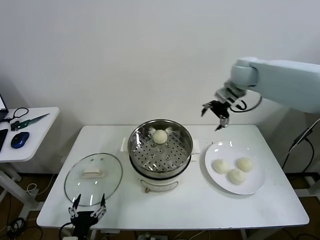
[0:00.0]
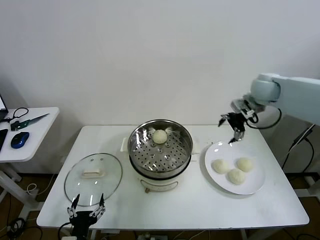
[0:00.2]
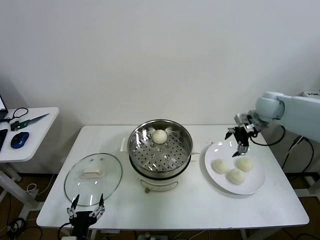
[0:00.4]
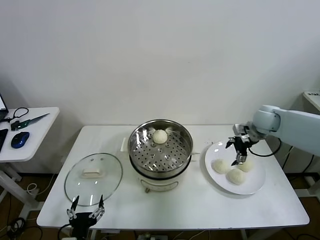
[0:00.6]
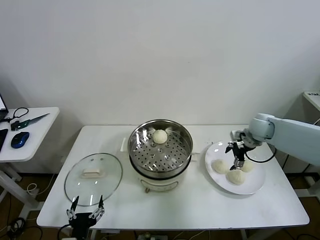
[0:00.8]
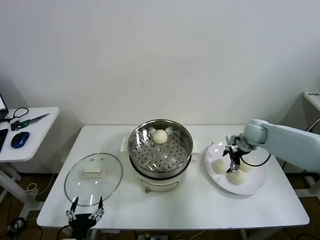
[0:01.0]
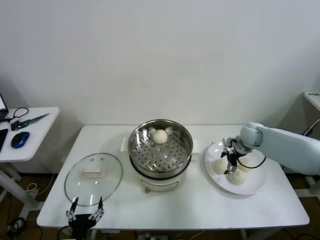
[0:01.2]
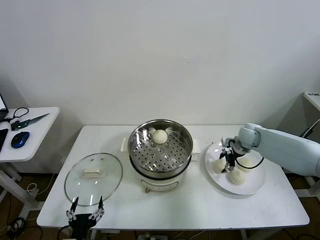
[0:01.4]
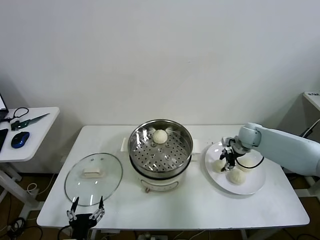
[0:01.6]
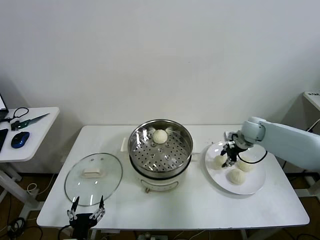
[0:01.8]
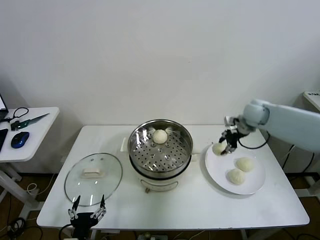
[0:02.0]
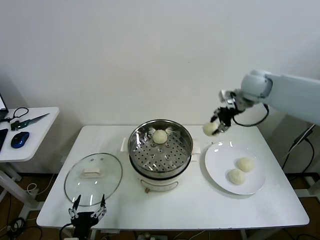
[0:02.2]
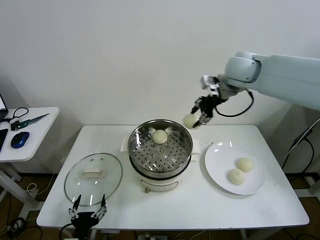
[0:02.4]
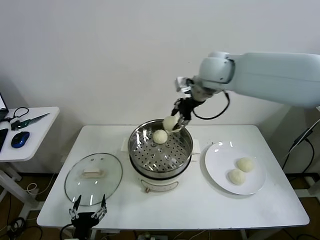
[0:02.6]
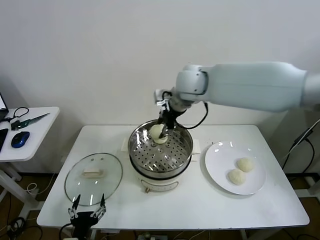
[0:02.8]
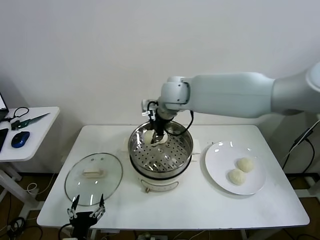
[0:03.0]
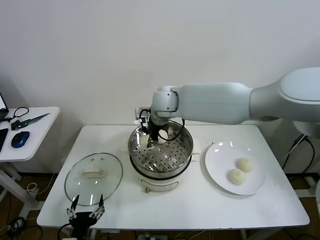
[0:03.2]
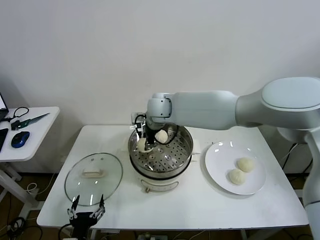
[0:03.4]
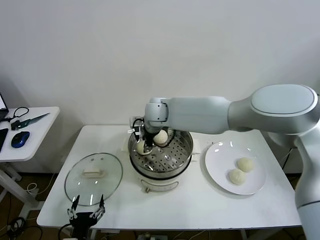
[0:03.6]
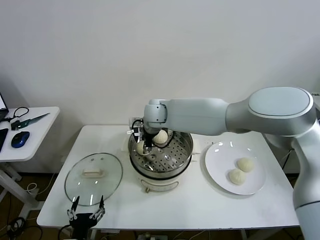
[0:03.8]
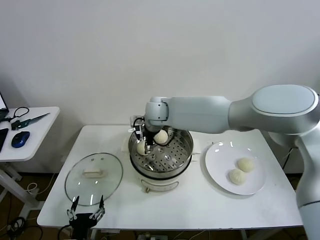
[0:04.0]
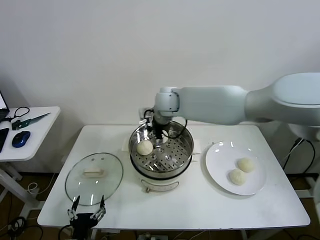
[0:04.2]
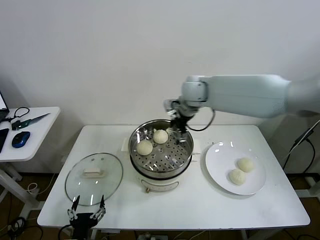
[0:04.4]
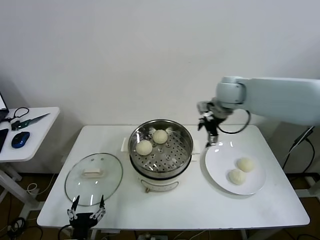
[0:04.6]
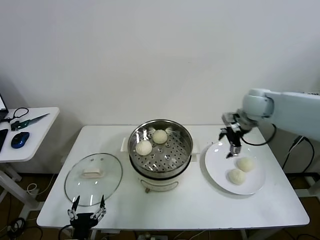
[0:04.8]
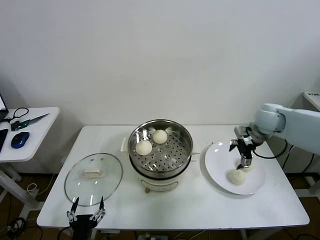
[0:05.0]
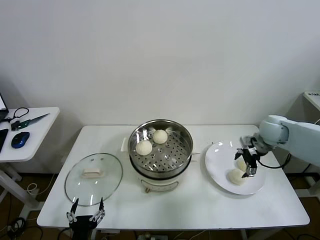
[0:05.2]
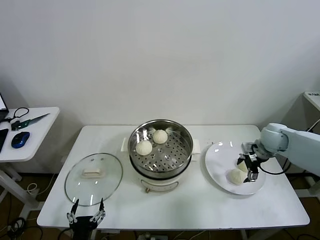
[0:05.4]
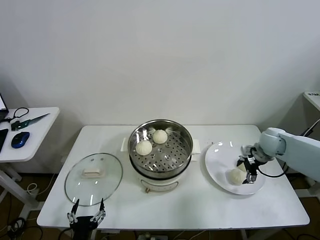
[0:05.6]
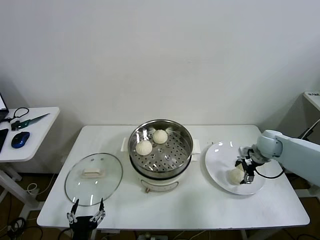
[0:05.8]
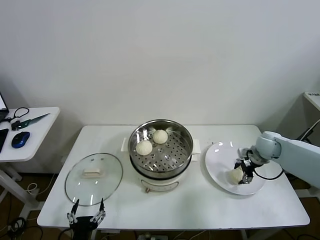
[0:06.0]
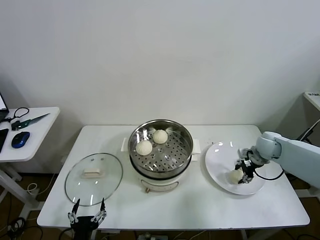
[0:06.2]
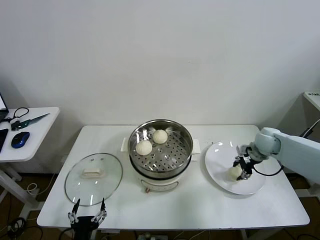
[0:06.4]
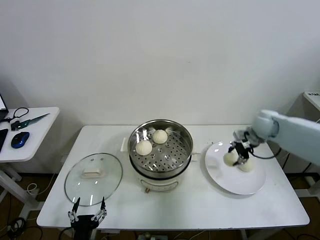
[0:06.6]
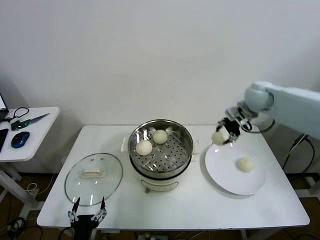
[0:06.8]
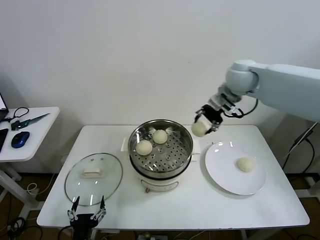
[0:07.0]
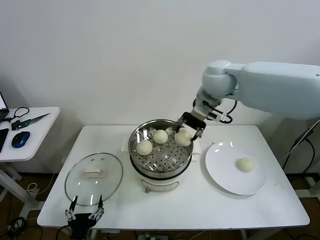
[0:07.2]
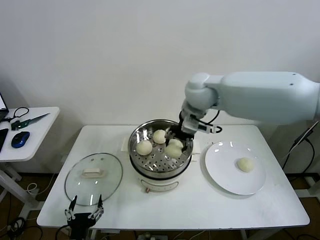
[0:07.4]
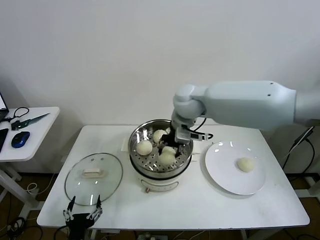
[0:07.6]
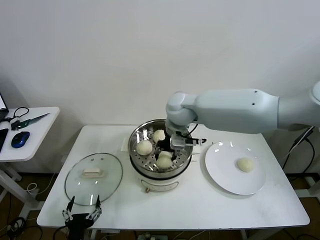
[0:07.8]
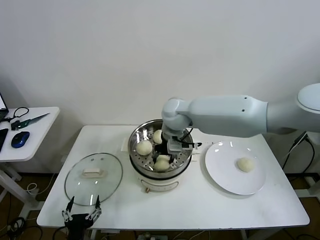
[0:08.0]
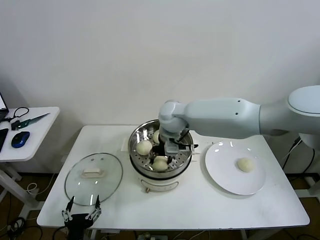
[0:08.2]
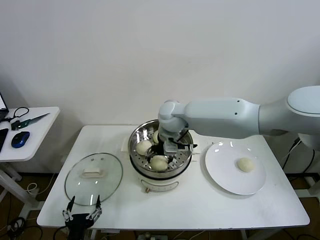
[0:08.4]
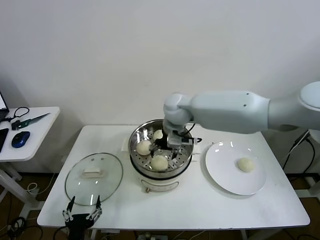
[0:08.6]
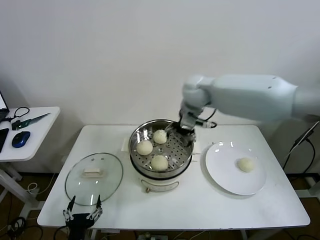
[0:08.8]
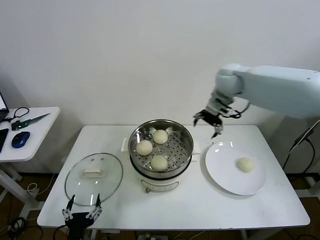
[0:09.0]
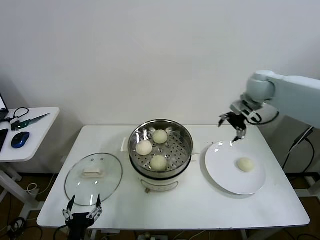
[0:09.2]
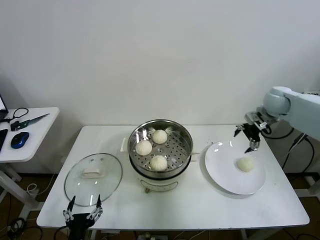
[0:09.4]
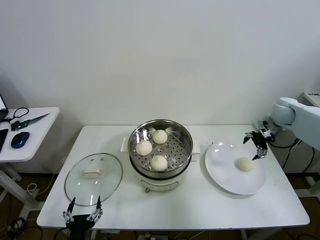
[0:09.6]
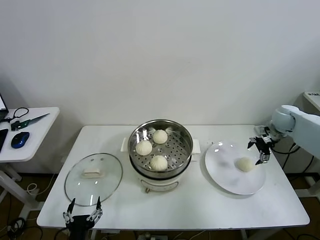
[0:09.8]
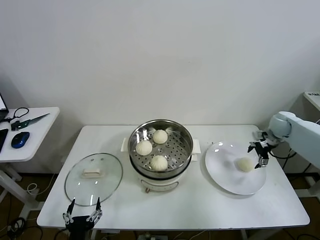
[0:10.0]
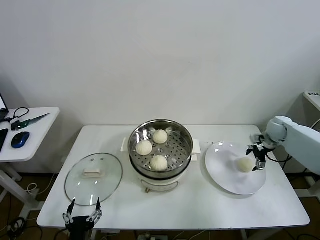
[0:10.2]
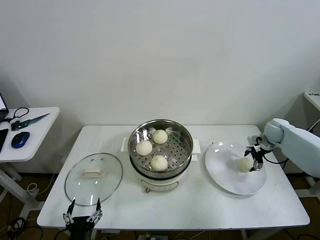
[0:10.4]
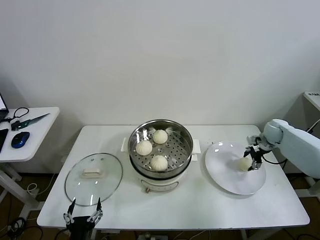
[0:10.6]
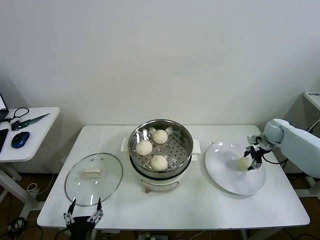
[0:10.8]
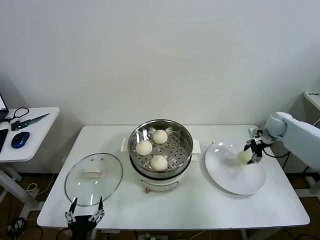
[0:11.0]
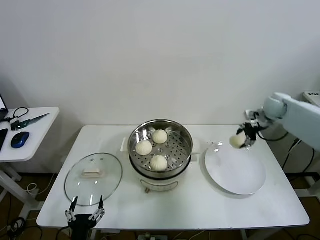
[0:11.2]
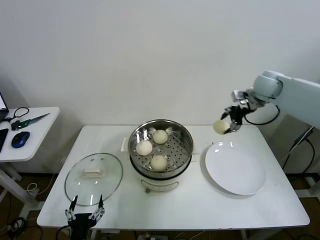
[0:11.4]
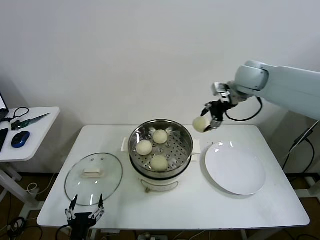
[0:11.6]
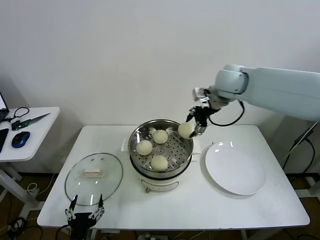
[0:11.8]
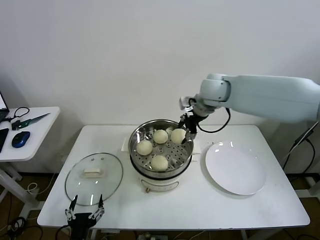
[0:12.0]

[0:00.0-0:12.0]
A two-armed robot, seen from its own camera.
Task of the whole recording: take steamed baozi put them in steamer then cover it.
Step, 0:00.0 to 0:01.4: Grasp the baozi in the plate with right gripper.
Step, 0:01.6 to 0:04.0: Place the baozi on the steamer with right gripper.
Step, 0:04.4 to 0:06.0: Grasp the baozi in the plate with right gripper.
Step, 0:06.2 to 0:08.4: Place the baozi on the steamer with right gripper.
Step, 0:08.6 to 0:10.4: Grasp the baozi in the plate with right gripper.
0:00.0 to 0:01.6: The right gripper heads downward, covering roughly 25 cm, and closes up.
0:01.6 to 0:03.0: The right gripper is displaced to the left and upward by roughly 40 cm.
0:03.0 to 0:04.4: The right gripper is displaced to the right by about 10 cm, and opens up.
0:04.4 to 0:06.0: The right gripper is displaced to the right and downward by approximately 35 cm, and closes.
0:06.0 to 0:07.6: The right gripper shifts approximately 40 cm to the left and upward, and closes up.
0:07.6 to 0:09.0: The right gripper is displaced to the right and forward by approximately 15 cm, and opens.
0:09.0 to 0:10.4: The right gripper shifts about 35 cm to the right and downward.
0:10.4 to 0:12.0: The right gripper goes approximately 35 cm to the left and upward, and closes its fingers.

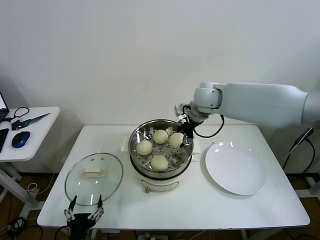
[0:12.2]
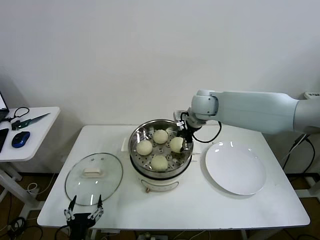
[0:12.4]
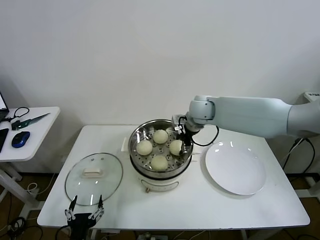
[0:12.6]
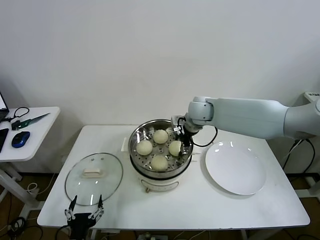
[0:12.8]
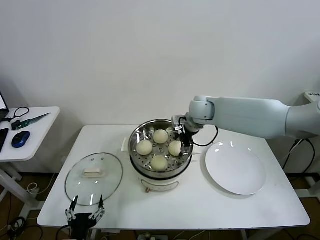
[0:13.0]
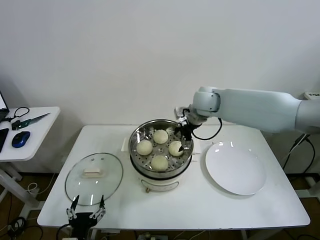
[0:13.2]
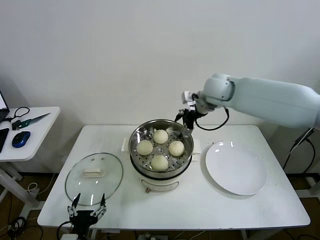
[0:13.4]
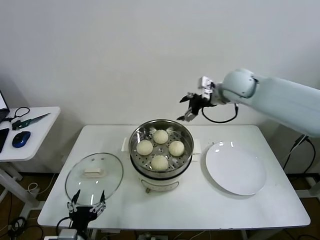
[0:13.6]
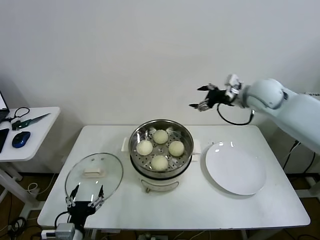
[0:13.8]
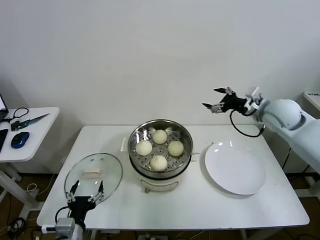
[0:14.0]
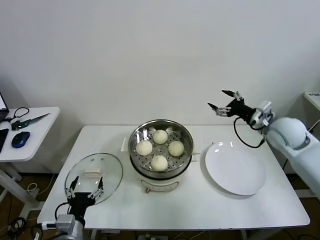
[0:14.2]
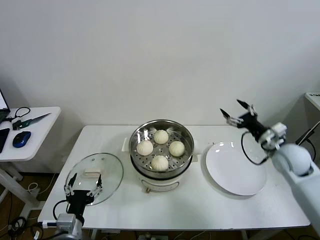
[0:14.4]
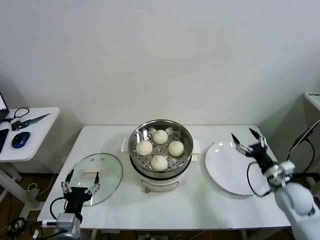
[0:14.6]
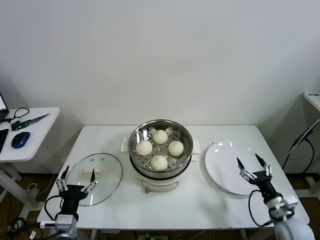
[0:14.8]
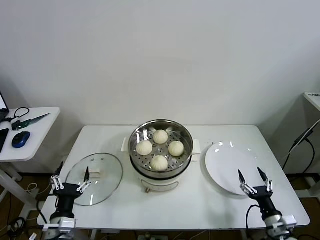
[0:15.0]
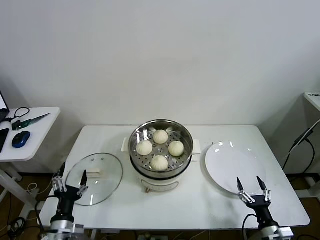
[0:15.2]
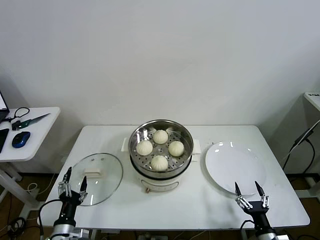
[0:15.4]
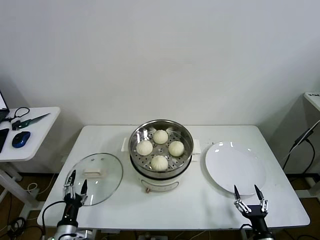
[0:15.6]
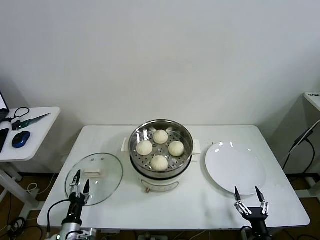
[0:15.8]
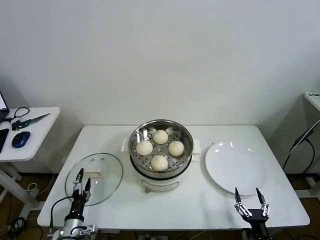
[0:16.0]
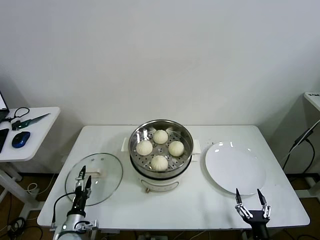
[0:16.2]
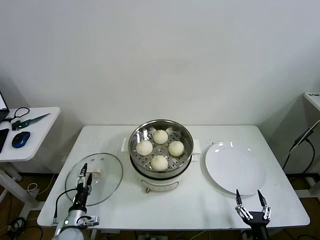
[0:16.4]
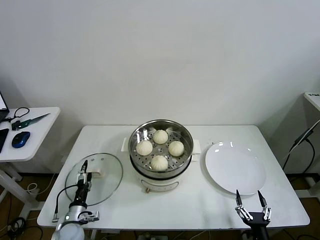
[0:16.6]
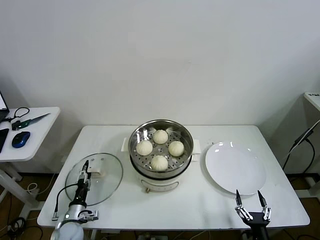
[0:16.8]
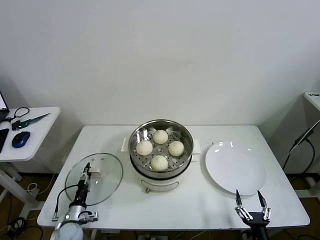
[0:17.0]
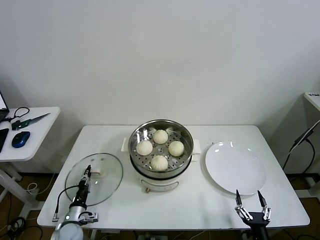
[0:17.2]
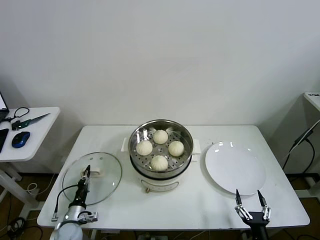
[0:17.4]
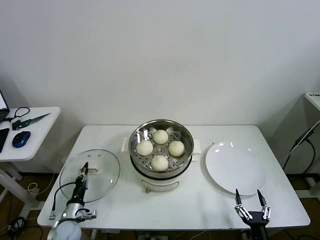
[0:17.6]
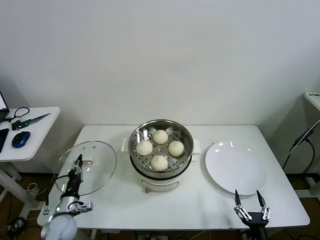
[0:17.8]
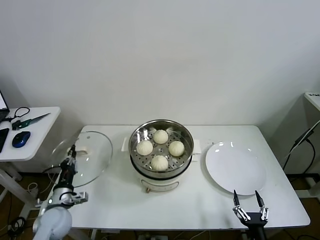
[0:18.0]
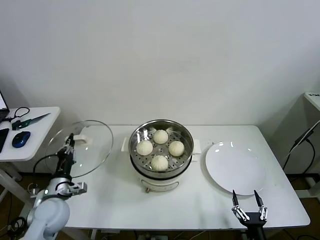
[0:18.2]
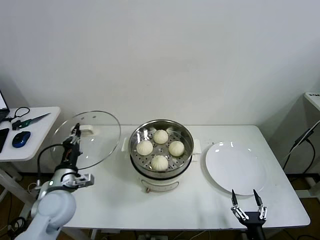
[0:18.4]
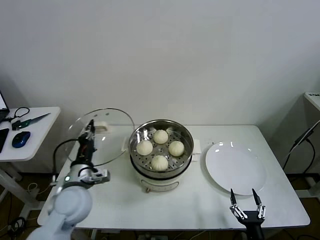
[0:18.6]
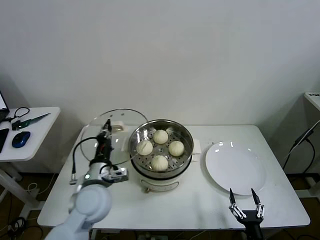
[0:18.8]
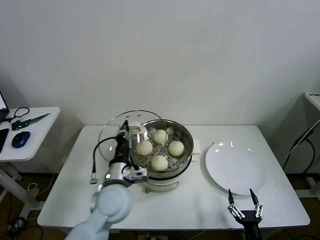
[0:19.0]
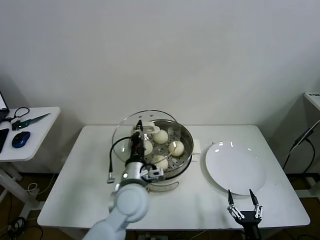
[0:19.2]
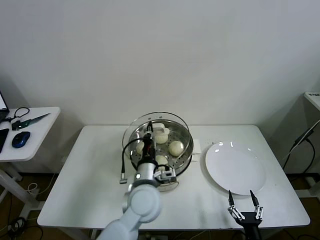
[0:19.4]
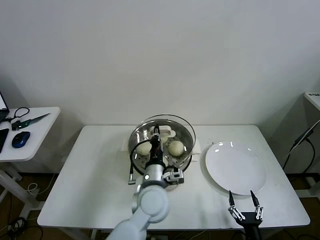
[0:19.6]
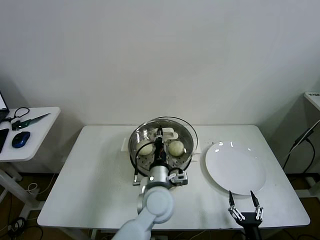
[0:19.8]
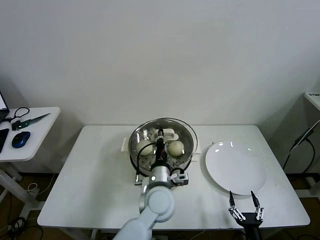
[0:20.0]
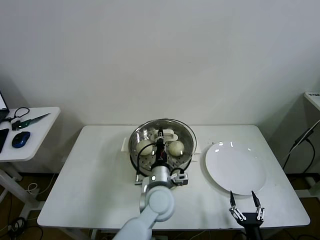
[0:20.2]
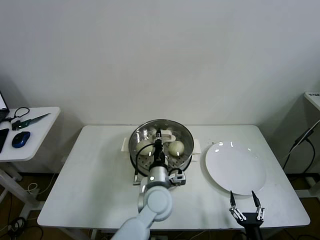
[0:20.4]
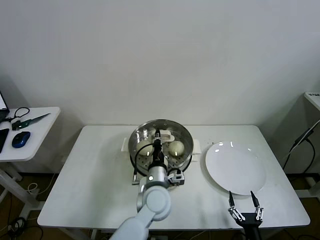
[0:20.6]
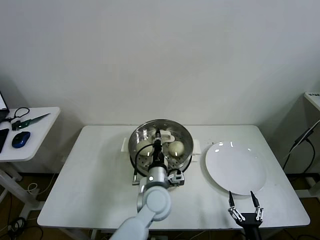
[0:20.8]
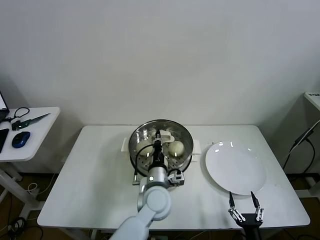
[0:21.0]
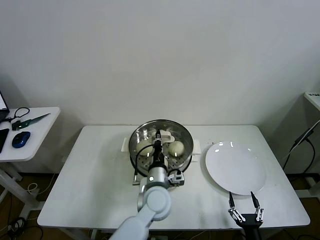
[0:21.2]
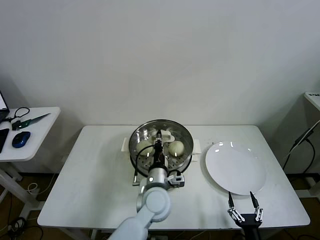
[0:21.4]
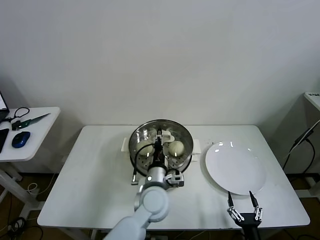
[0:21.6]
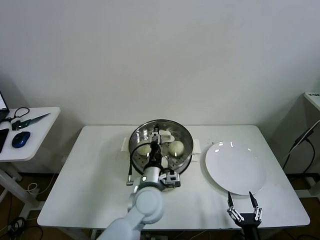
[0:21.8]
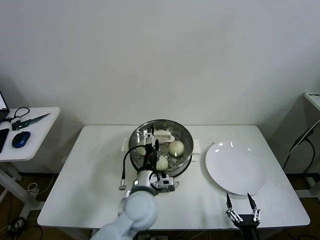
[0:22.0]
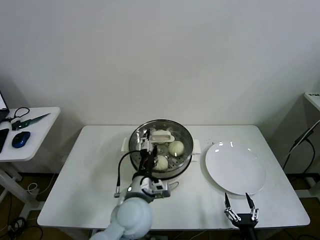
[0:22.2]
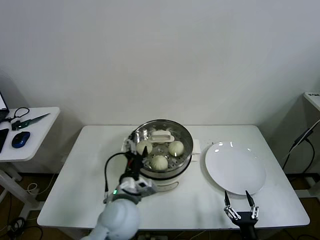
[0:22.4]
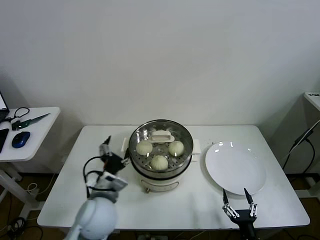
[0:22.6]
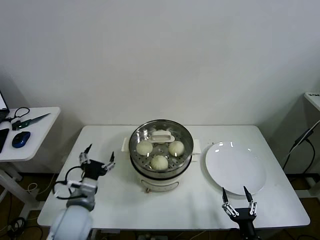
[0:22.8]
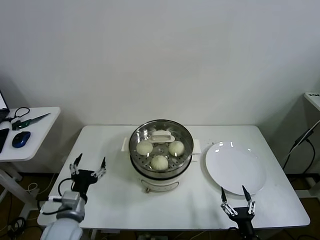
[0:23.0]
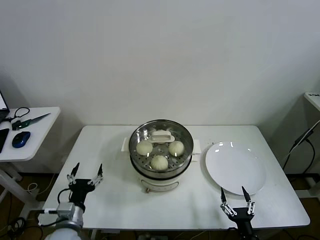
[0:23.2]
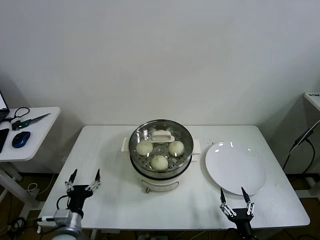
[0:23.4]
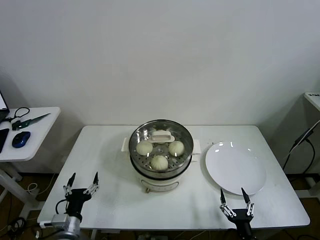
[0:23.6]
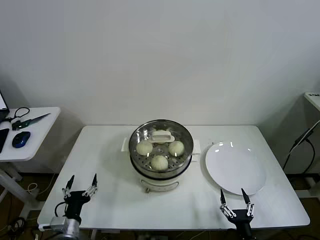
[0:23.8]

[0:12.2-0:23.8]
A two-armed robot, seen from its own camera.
Task of the whole recording: take steamed baozi put them in steamer then cover it.
Step, 0:13.2 to 0:17.2: Grasp the pot lid with left gripper.
Step, 0:17.6 to 0:22.0: Place the pot lid on the steamer with left gripper.
0:12.2 to 0:13.6: The right gripper heads to the right, covering roughly 10 cm, and opens up.
0:13.6 to 0:15.0: The left gripper ends up about 5 cm from where it was, while the right gripper moves downward, backward and to the right, approximately 50 cm.
0:15.0 to 0:16.6: The left gripper heads downward and forward, covering roughly 15 cm. Meanwhile the right gripper goes approximately 10 cm backward and to the left.
0:16.6 to 0:18.0: The left gripper goes approximately 10 cm upward, and closes up.
0:18.0 to 0:19.4: The left gripper is displaced to the right and upward by about 35 cm.
0:19.4 to 0:21.0: The left gripper goes some 5 cm downward.
0:21.0 to 0:22.4: The left gripper goes roughly 10 cm to the left, backward and upward, and opens its fingers.
0:22.4 to 0:23.8: The left gripper moves to the left and downward, about 25 cm.
